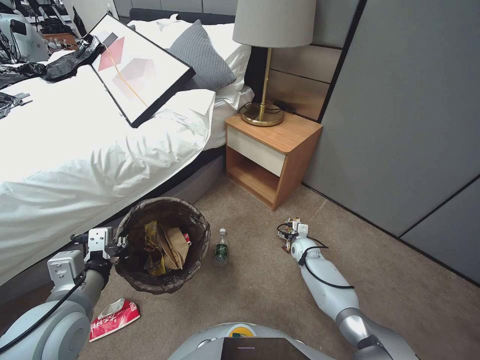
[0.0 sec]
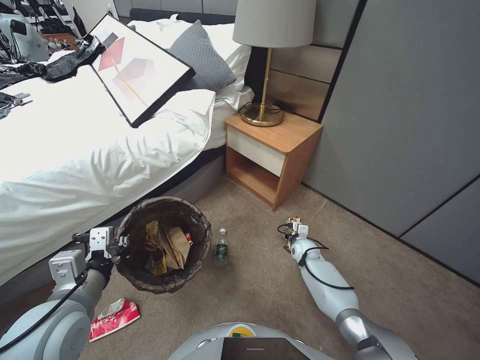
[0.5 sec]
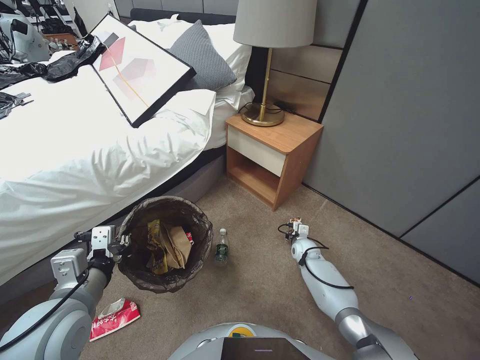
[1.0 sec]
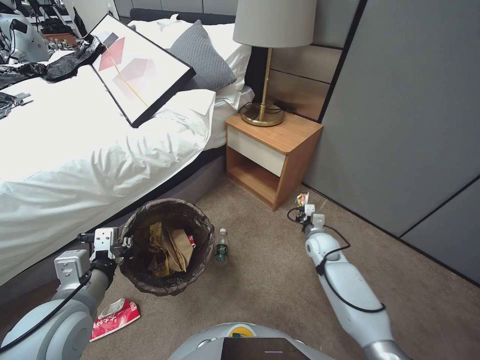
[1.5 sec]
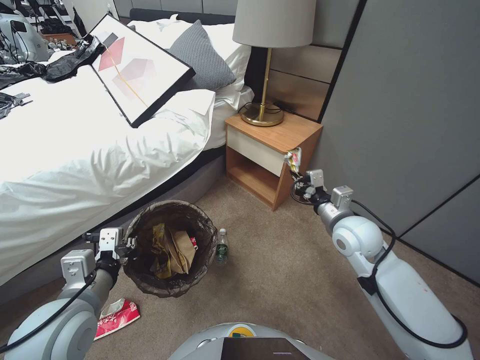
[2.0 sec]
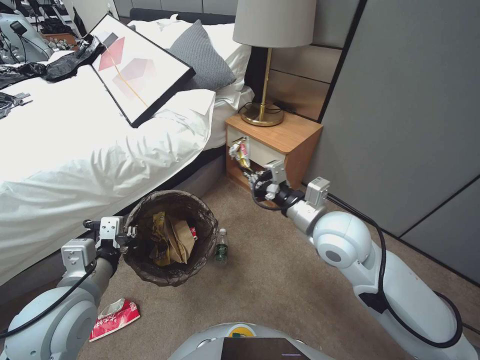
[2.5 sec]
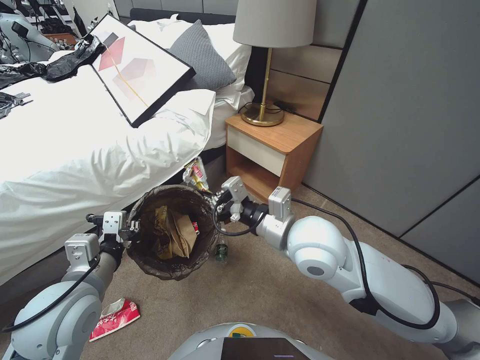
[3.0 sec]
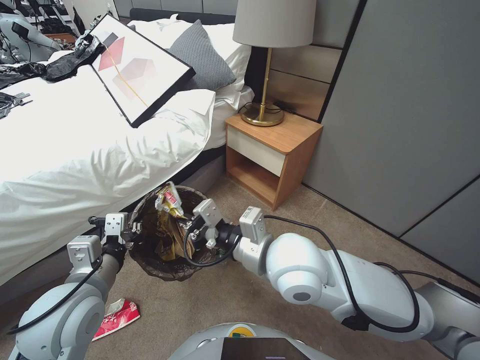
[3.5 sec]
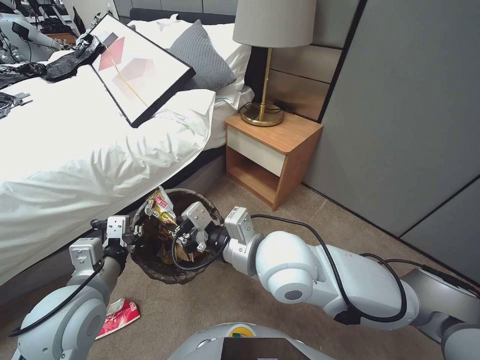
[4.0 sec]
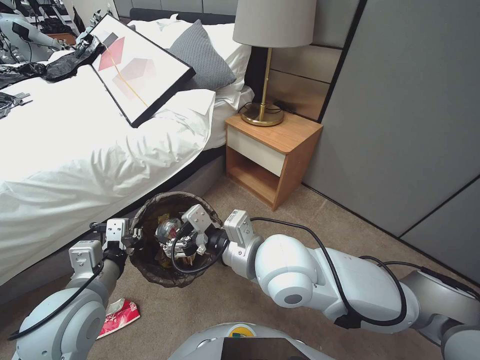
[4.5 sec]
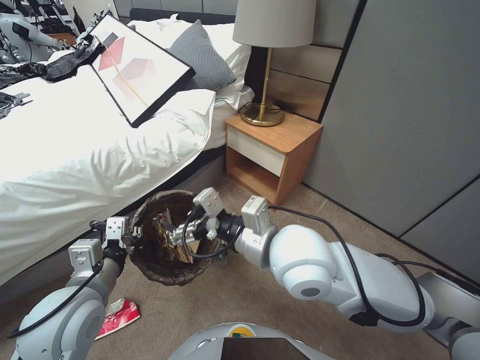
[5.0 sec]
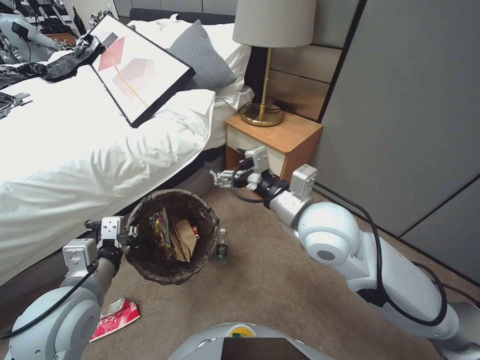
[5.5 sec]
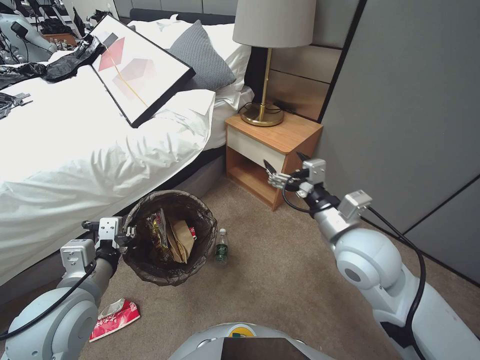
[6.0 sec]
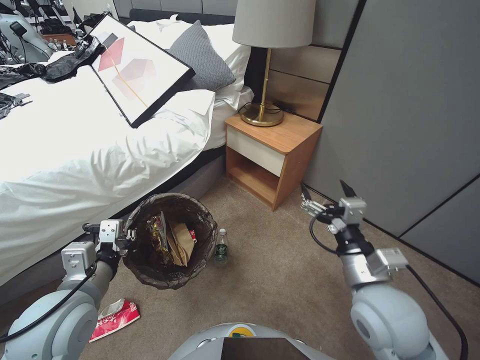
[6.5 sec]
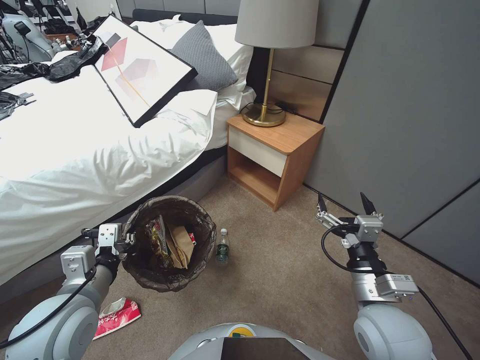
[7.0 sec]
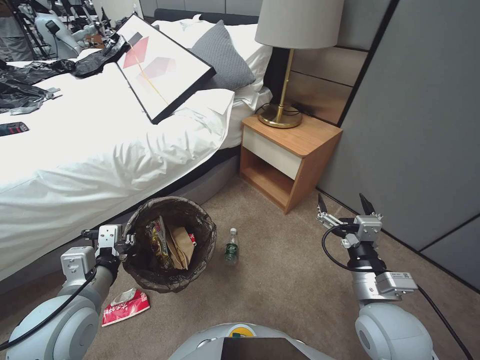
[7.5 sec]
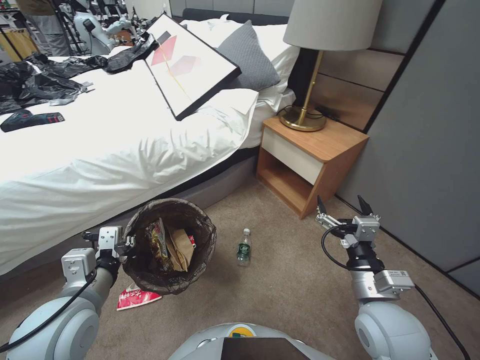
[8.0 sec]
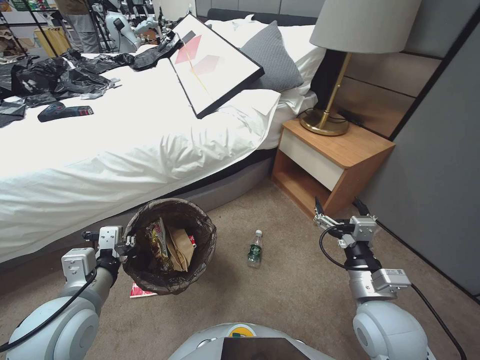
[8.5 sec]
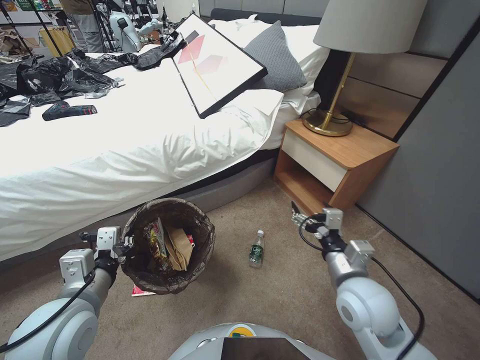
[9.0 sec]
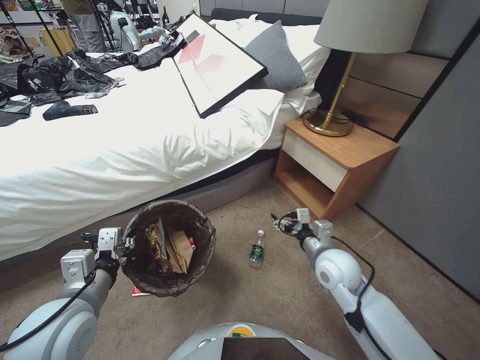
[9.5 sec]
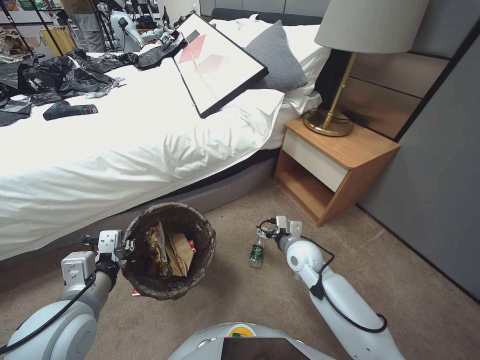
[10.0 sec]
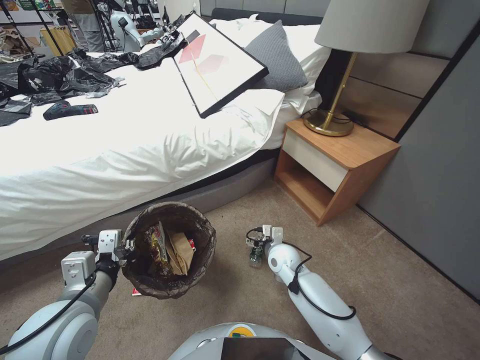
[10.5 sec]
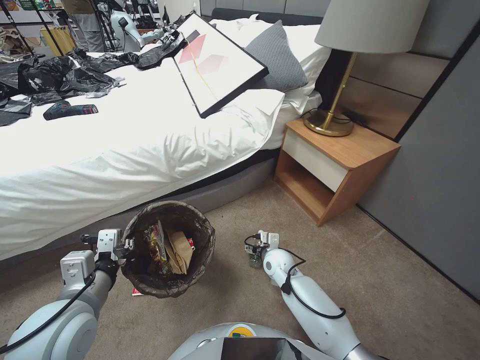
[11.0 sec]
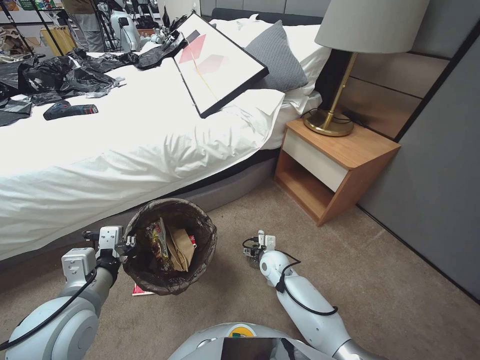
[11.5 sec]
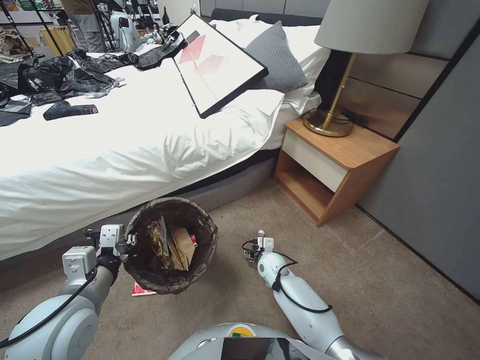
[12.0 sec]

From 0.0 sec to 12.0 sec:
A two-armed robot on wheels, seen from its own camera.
Task of the whole recording: Pick up the trash bin, then pick up the garbage from the floor and place it into the trash bin.
From 0.0 sec to 2.0 sec: The right gripper moves upward, some 25 cm, and closes its fingers.
From 2.0 sec to 4.0 sec: The right gripper is displaced to the left, upward and backward by roughly 30 cm.
From 4.0 sec to 6.0 sec: The right gripper moves to the right, approximately 15 cm, and opens up.
From 6.0 sec to 8.0 sec: The right gripper travels downward, backward and to the right by approximately 15 cm.
From 8.0 sec to 10.0 sec: The right gripper moves forward and downward, about 20 cm.
From 10.0 sec to 12.0 sec: The right gripper shifts approximately 15 cm downward and to the left.

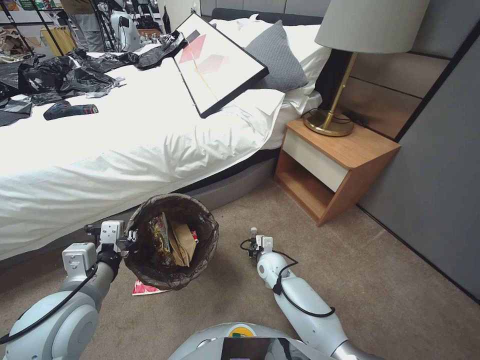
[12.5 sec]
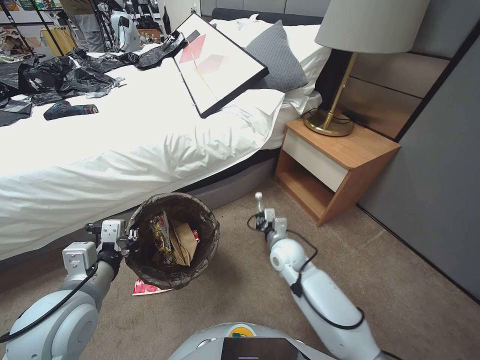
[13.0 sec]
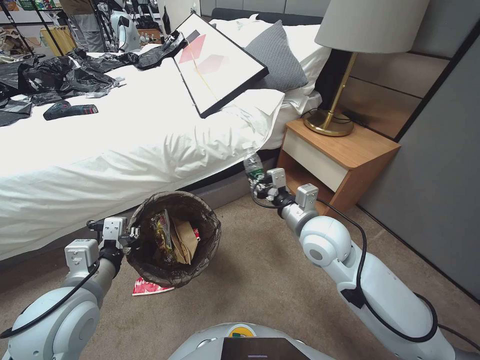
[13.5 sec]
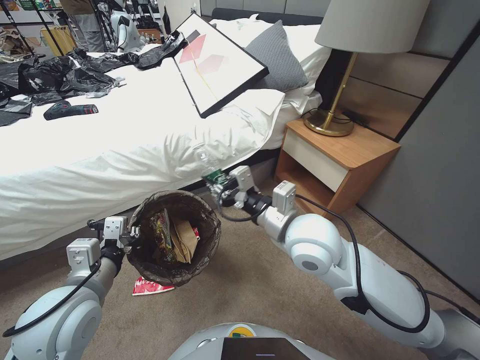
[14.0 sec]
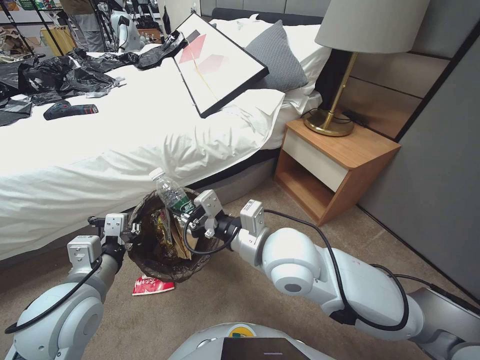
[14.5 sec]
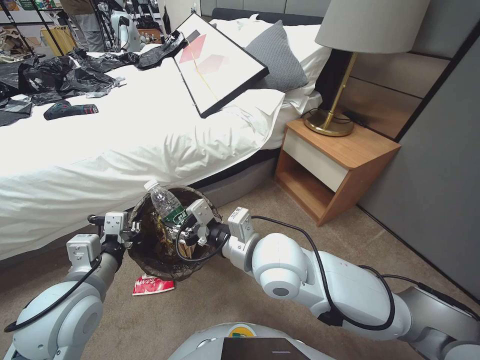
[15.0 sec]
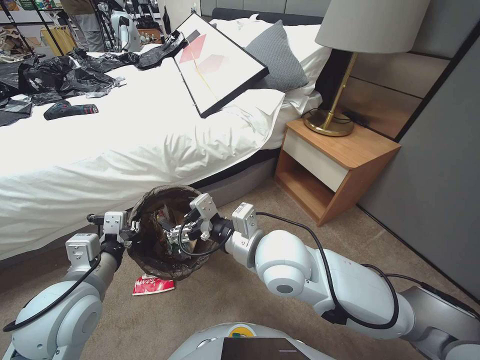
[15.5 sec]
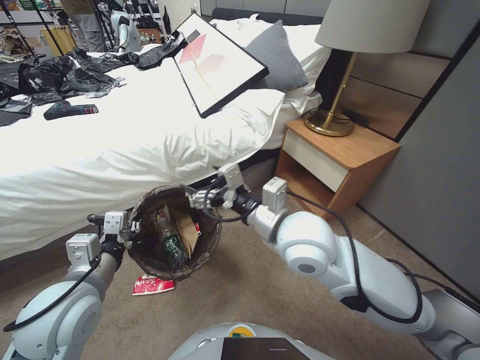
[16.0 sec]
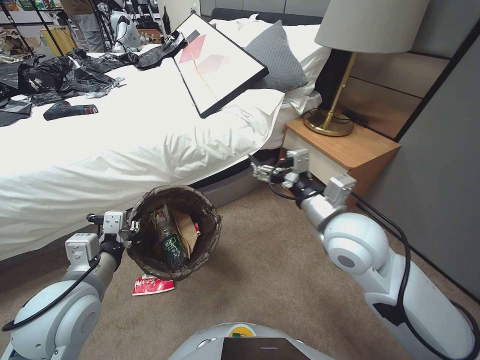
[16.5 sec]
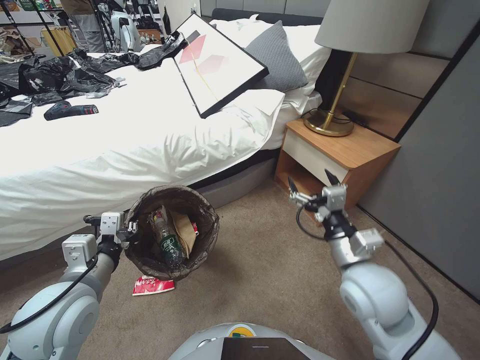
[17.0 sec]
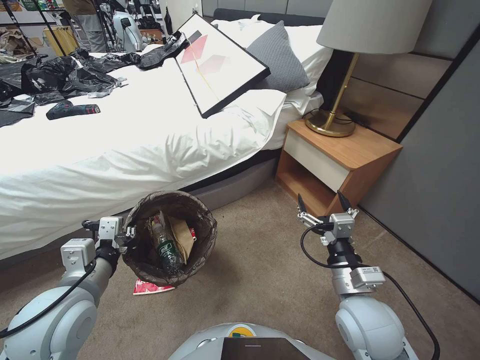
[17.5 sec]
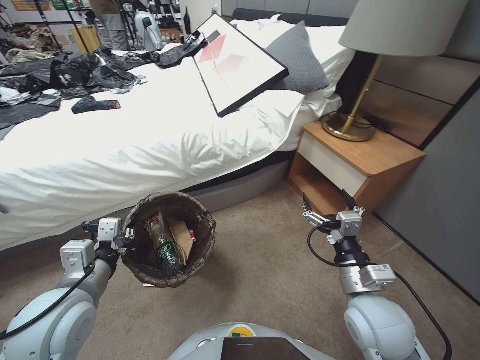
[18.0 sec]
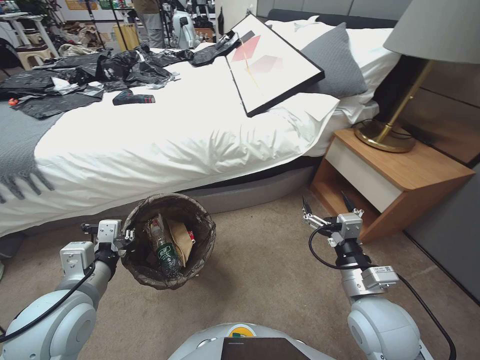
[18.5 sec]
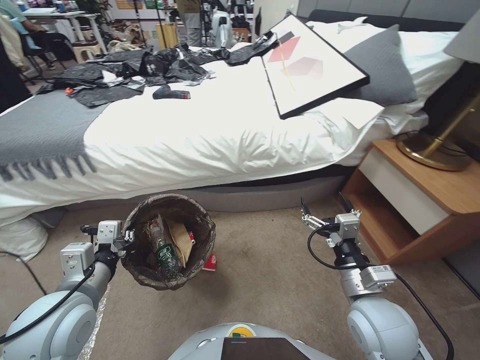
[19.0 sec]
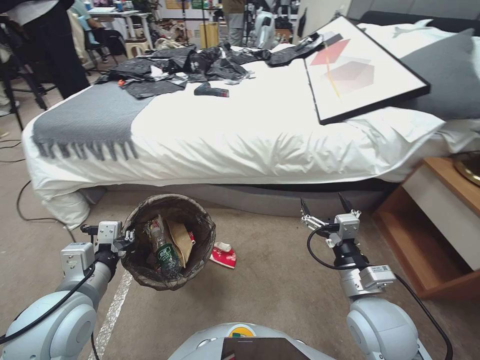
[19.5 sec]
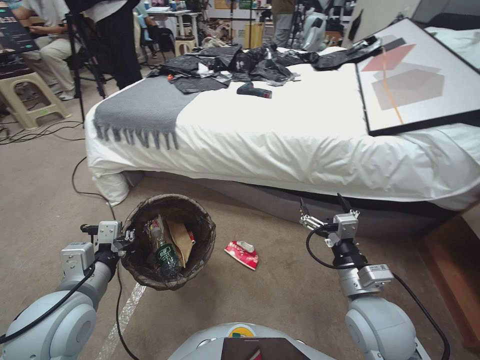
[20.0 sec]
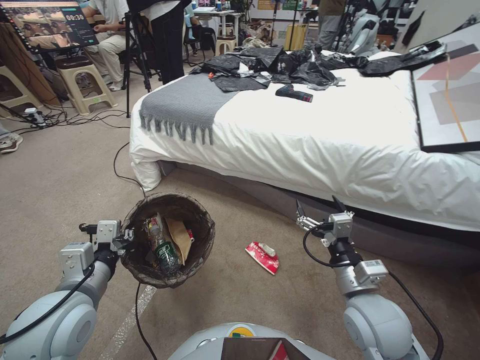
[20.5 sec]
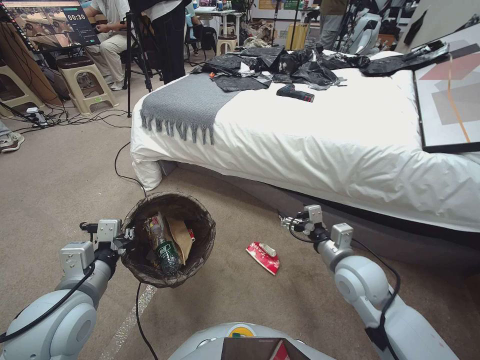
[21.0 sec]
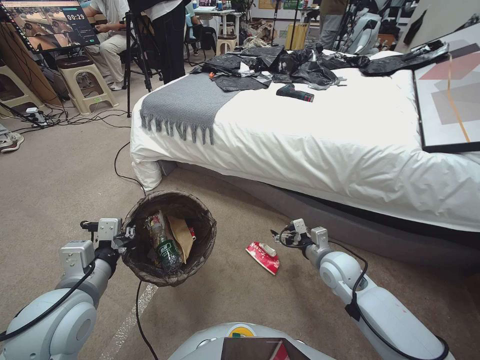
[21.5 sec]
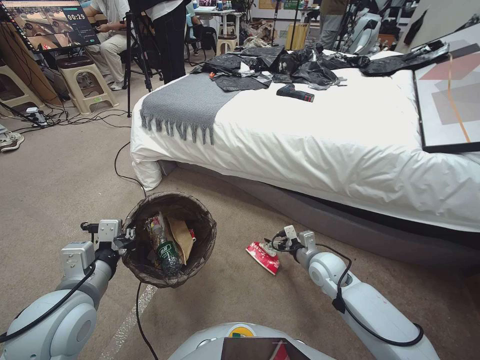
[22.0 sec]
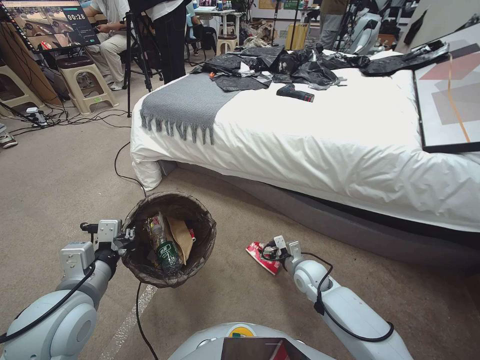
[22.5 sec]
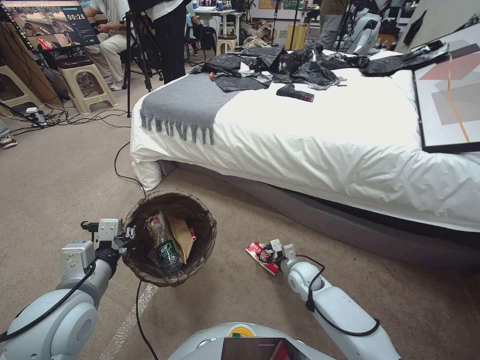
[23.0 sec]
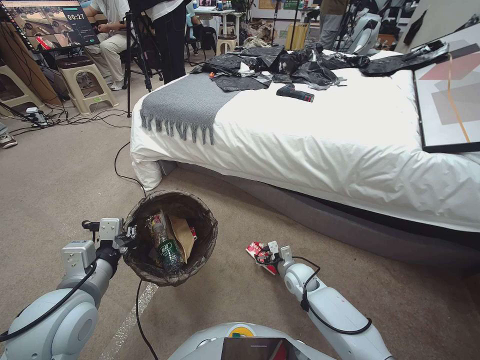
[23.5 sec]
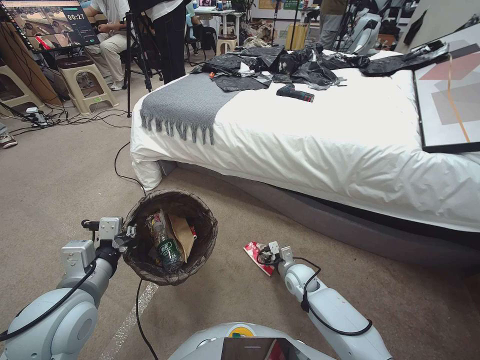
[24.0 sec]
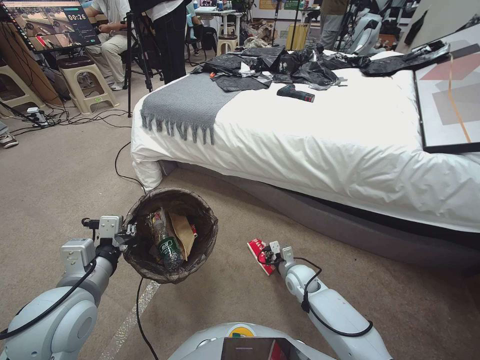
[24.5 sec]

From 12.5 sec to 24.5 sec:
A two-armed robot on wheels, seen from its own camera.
Task of the whole recording: Pick up the trash bin, then pick up the garbage from the floor and place it into the trash bin.
From 12.5 sec to 14.5 sec: The right gripper moves upward, approximately 35 cm.
From 14.5 sec to 16.5 sec: The right gripper travels to the right by roughly 10 cm, and opens its fingers.
From 16.5 sec to 18.5 sec: The right gripper travels downward, backward and to the right by roughly 20 cm.
From 20.5 sec to 22.5 sec: The right gripper heads downward and forward, covering approximately 25 cm.
From 22.5 sec to 24.5 sec: The right gripper goes approximately 5 cm downward, and closes its fingers.

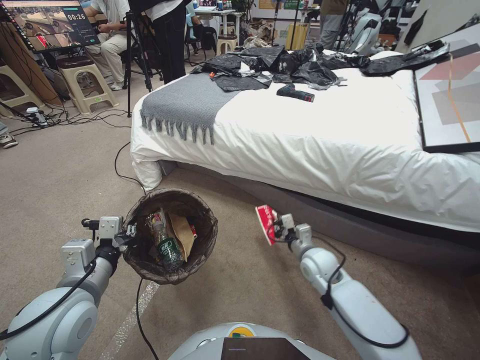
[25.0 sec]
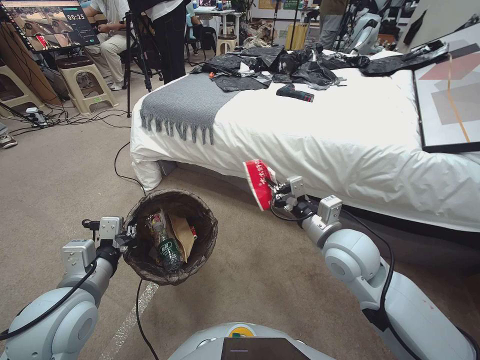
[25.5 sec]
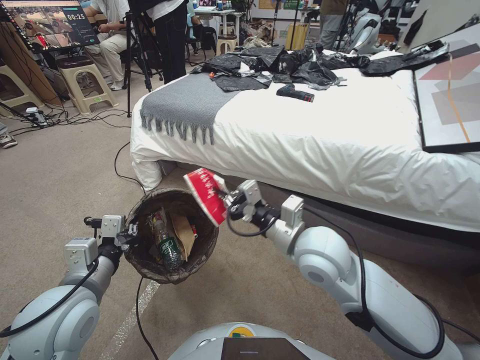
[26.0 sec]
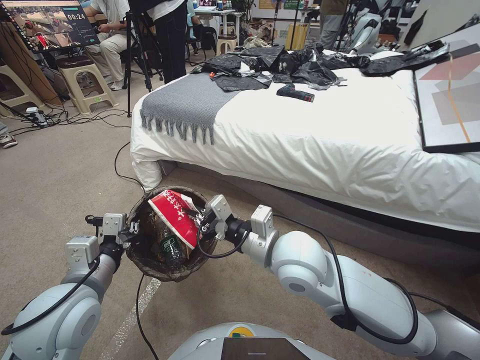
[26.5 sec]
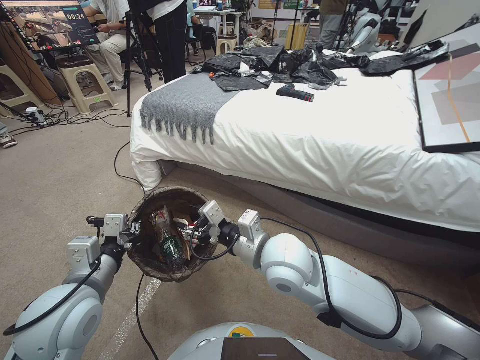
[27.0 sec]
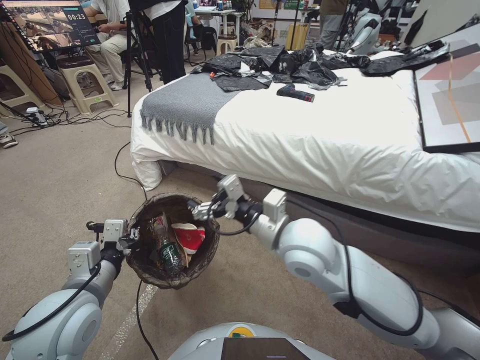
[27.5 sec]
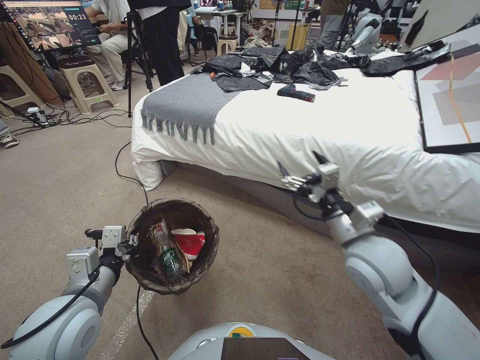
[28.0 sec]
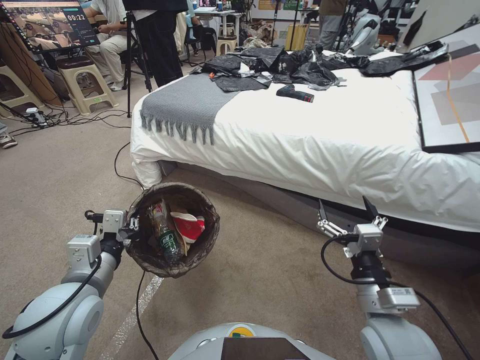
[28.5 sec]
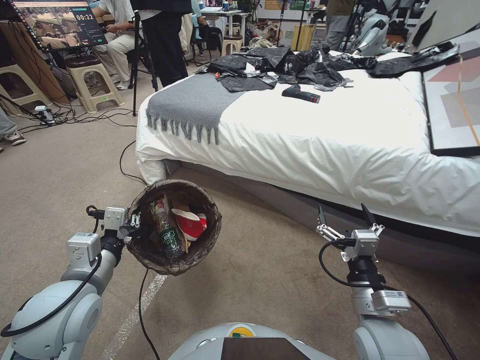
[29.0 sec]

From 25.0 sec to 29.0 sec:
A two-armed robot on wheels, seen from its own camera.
Task of the whole recording: Pick up the trash bin, then pick up the garbage from the floor and place it into the trash bin.
From 25.0 sec to 27.0 sec: The right gripper is displaced upward and to the left by about 30 cm, and opens up.
From 27.0 sec to 29.0 sec: The right gripper shifts approximately 25 cm to the right, backward and downward, and opens its fingers.
